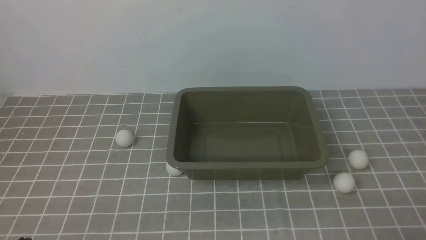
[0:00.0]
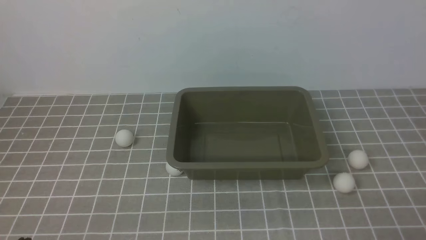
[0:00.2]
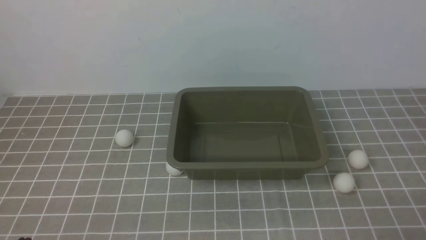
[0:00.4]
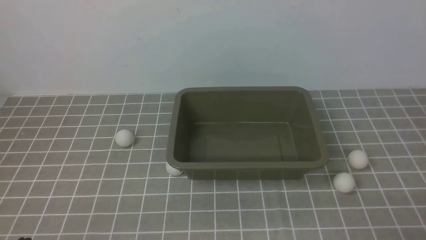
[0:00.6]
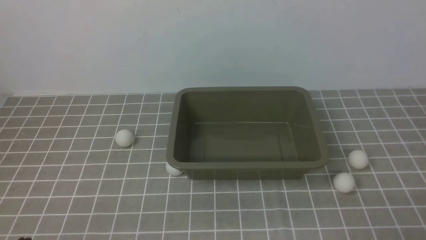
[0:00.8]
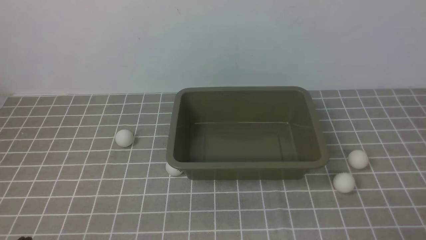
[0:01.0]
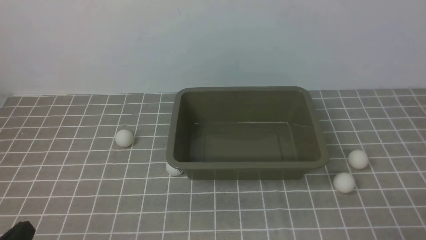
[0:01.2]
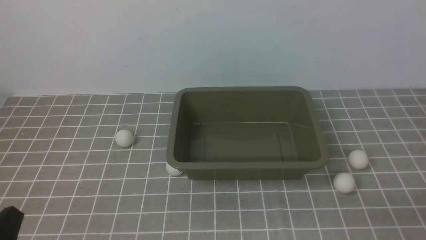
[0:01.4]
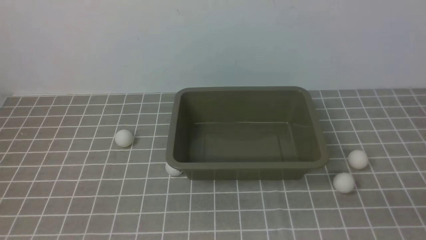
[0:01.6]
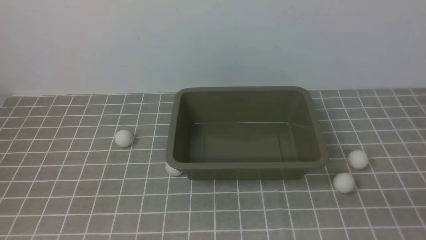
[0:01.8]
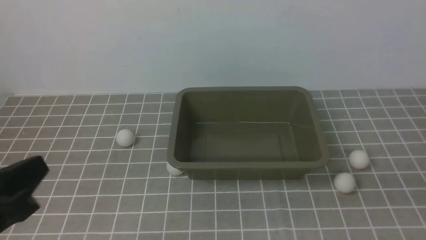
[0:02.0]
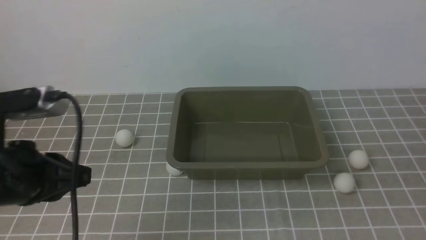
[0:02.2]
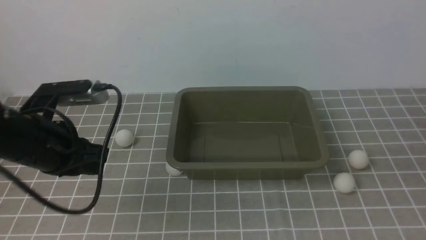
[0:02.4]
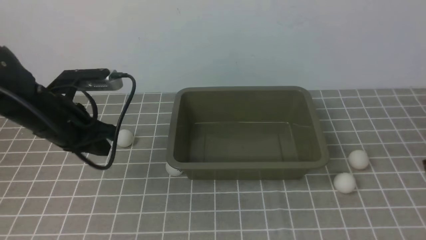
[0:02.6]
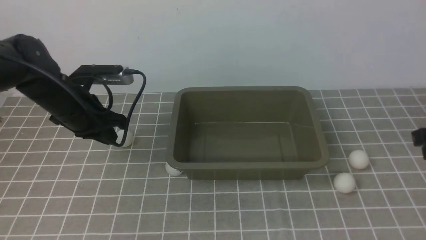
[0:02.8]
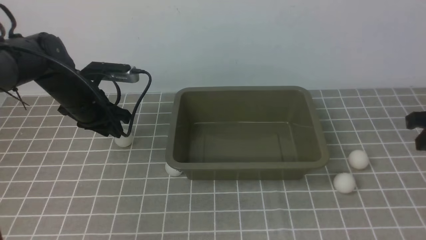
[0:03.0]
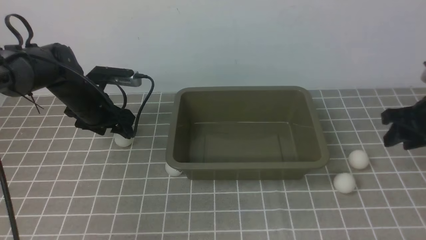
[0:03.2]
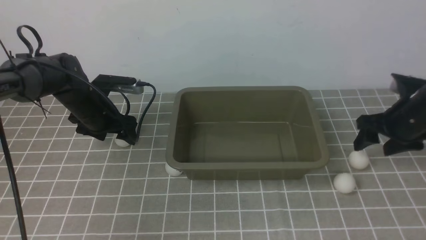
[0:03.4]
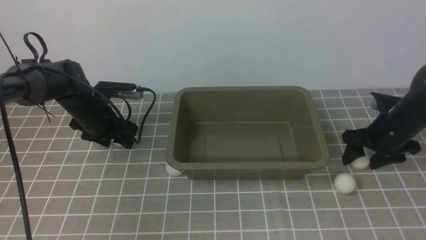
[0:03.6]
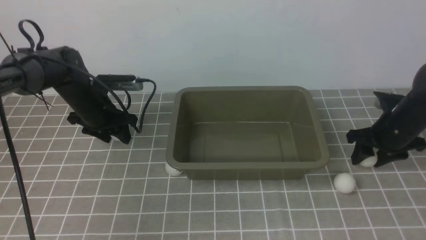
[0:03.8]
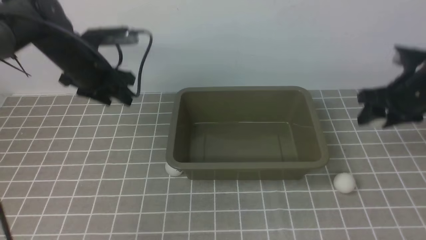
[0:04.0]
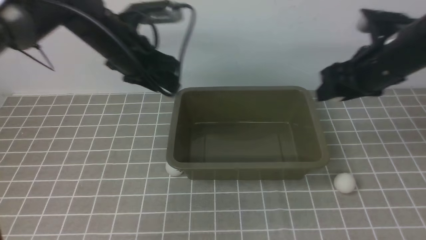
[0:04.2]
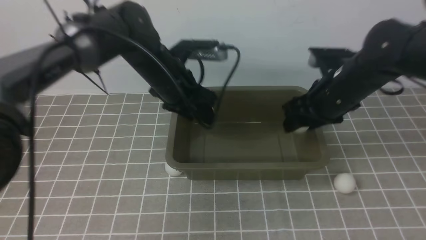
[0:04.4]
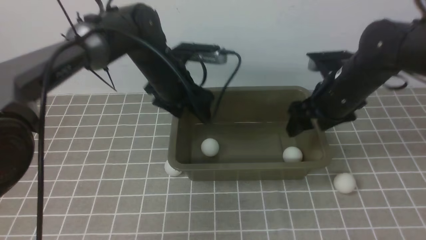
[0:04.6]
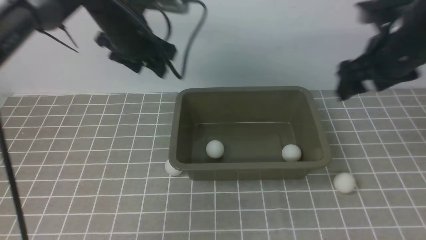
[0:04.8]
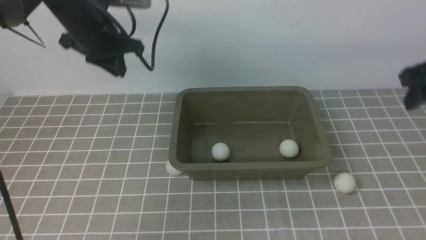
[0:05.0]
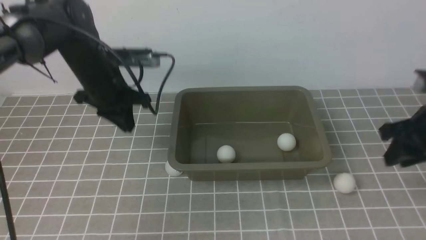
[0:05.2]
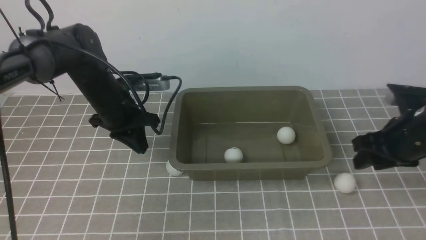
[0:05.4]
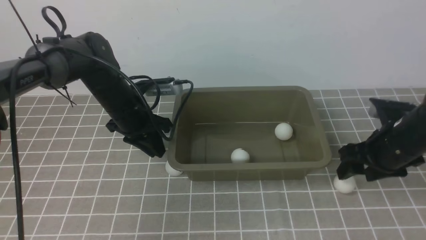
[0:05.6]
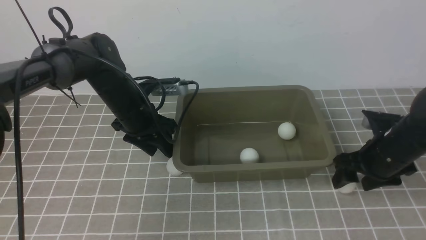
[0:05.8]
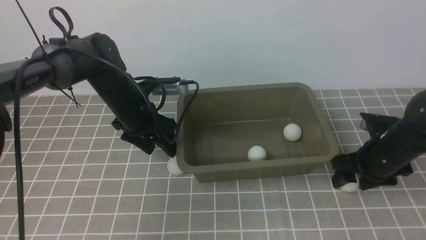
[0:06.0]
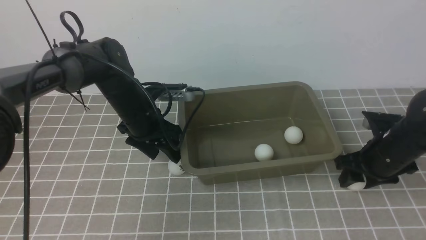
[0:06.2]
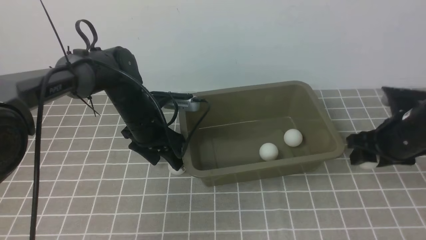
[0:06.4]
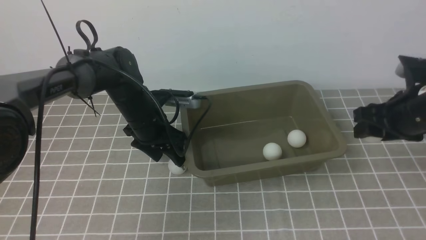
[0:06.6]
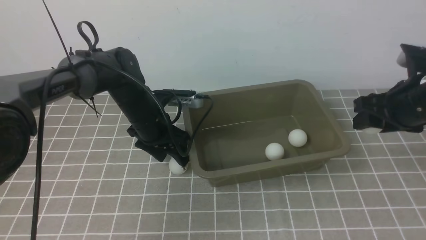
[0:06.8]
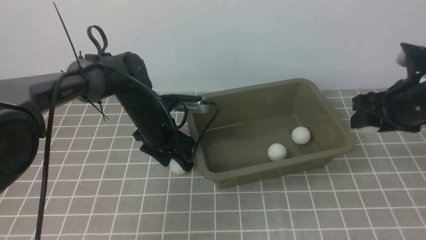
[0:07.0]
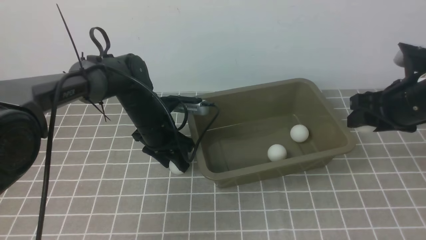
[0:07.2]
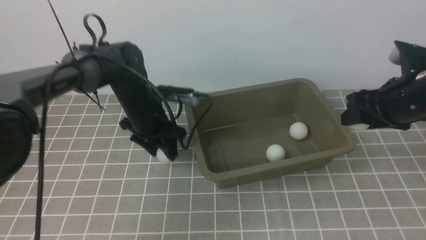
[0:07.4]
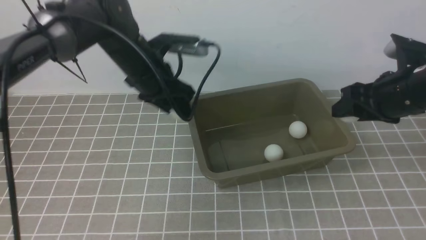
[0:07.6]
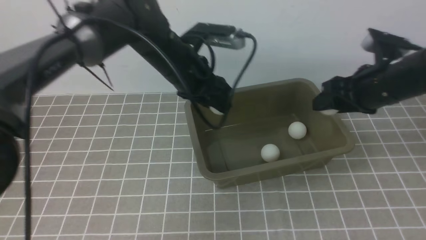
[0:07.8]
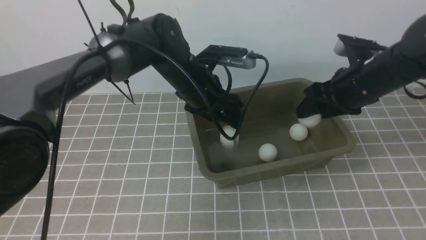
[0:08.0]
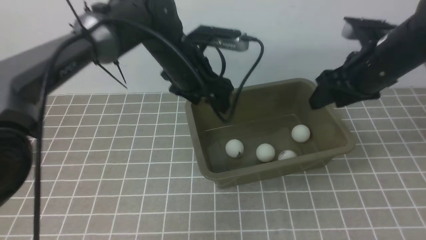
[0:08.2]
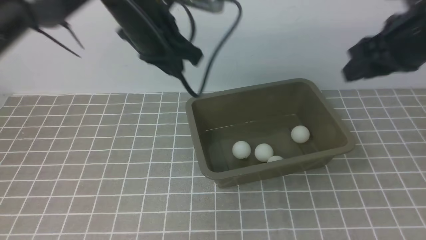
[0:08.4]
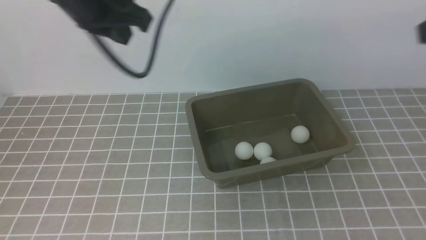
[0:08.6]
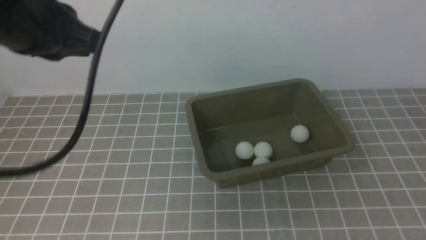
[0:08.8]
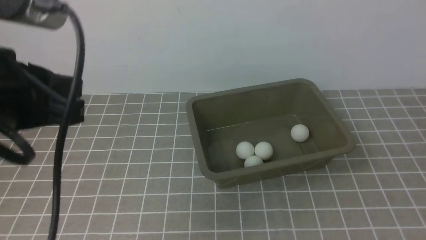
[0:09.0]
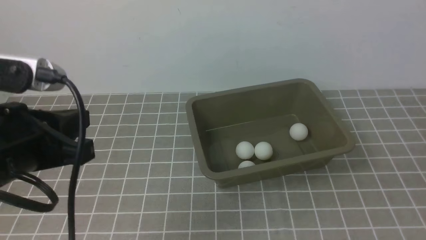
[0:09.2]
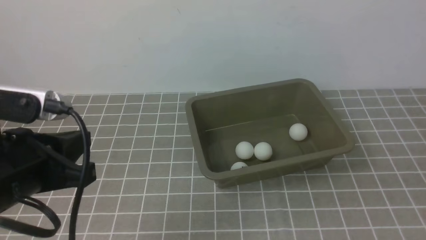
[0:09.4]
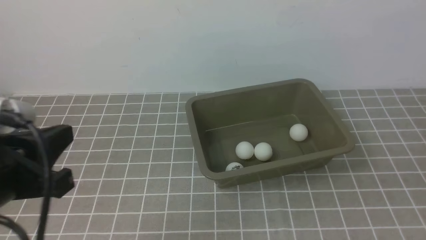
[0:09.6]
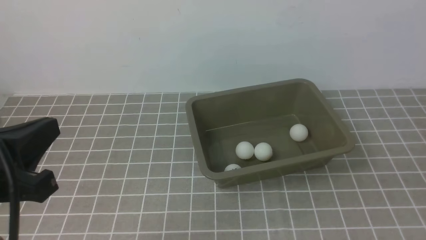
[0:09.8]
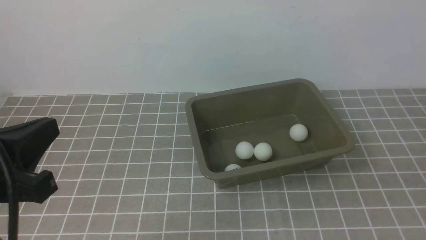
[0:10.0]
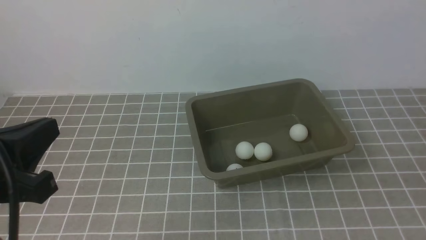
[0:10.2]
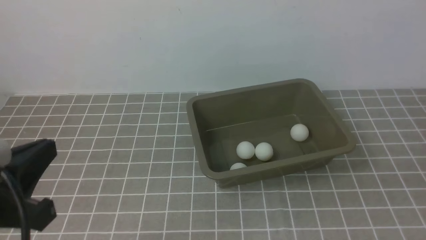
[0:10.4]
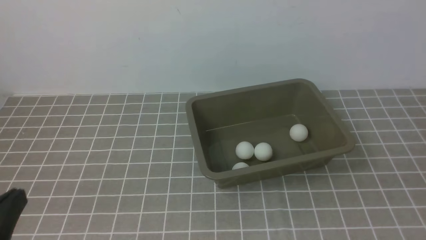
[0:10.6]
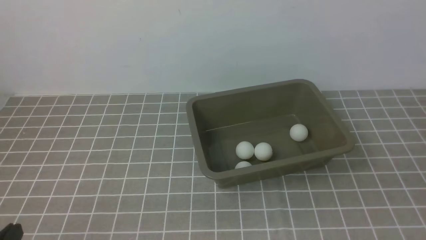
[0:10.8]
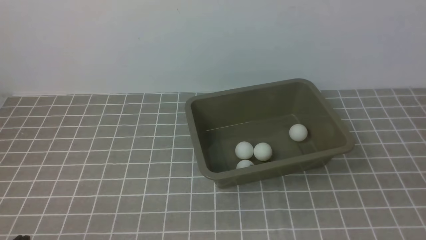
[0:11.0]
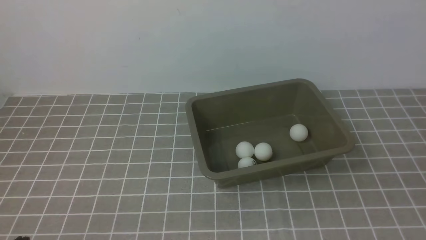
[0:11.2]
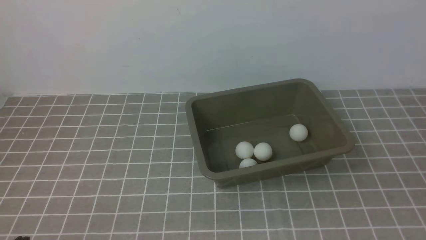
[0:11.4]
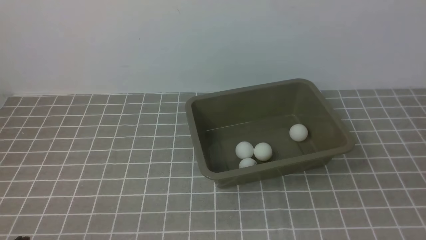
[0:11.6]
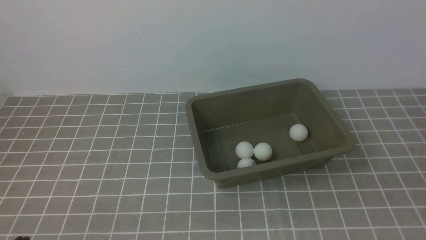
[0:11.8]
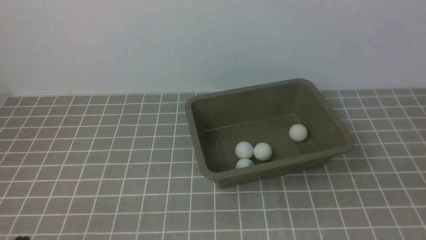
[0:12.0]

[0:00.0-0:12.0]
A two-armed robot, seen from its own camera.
Step, 0:00.0 to 0:03.8: use the left arm to clamp the table tennis ball closest to it.
Step, 0:04.0 to 0:04.4: use the left arm to put the table tennis ball into the box.
Step, 0:04.6 to 0:06.6: use the right arm to clamp the table tennis ball closest to it.
Step, 0:06.8 to 0:07.4: use the left arm to clamp the table tennis ball closest to it.
Step, 0:07.6 to 0:08.2: use the right arm to put the table tennis ball into the box.
0:01.6 to 0:03.0: The right gripper shifts approximately 20 cm forward and upward, while the left gripper is displaced forward by approximately 35 cm.
0:03.0 to 0:04.4: The left gripper goes some 15 cm to the right and upward, and opens its fingers; the right gripper heads to the left and forward, covering approximately 15 cm, and opens.
0:04.4 to 0:06.0: The right gripper goes roughly 10 cm downward and to the right; the left gripper is displaced downward by about 10 cm, and closes, then opens again.
0:06.0 to 0:07.6: The left gripper shifts by about 5 cm, while the right gripper moves upward, approximately 10 cm.
0:07.6 to 0:09.0: The two grippers go about 30 cm backward and upward. The right gripper closes up. Meanwhile the left gripper closes its fingers.
0:09.0 to 0:10.4: The left gripper travels backward and downward by roughly 15 cm.
0:10.4 to 0:12.0: The left gripper shifts about 15 cm downward.

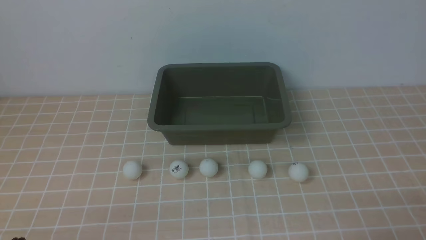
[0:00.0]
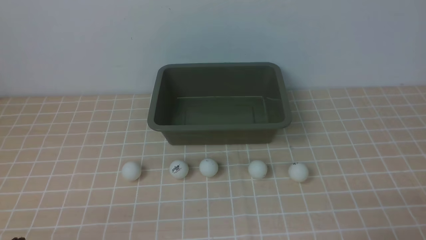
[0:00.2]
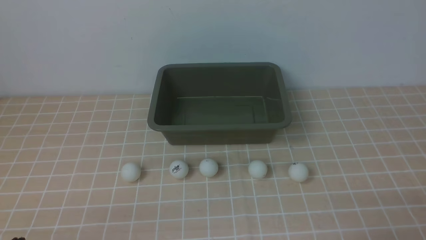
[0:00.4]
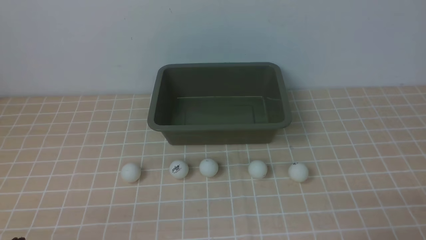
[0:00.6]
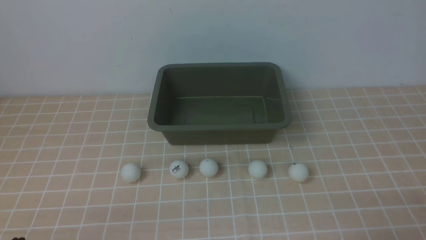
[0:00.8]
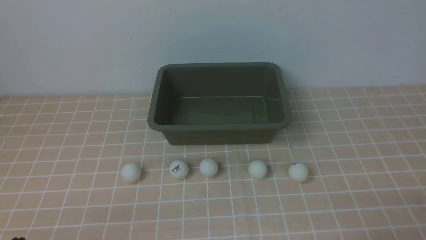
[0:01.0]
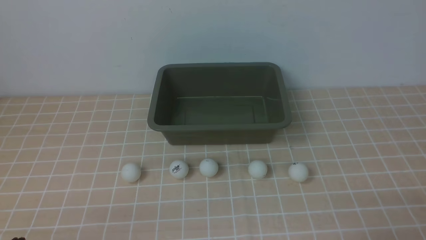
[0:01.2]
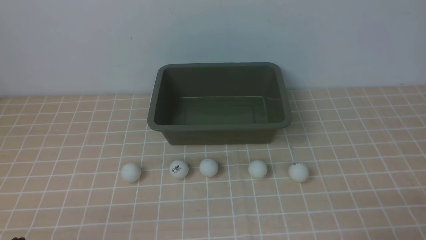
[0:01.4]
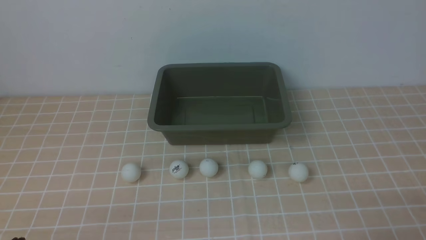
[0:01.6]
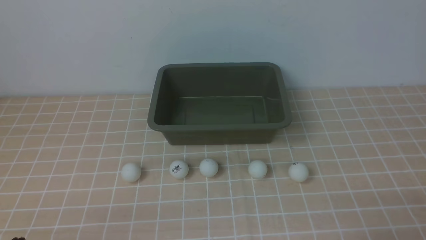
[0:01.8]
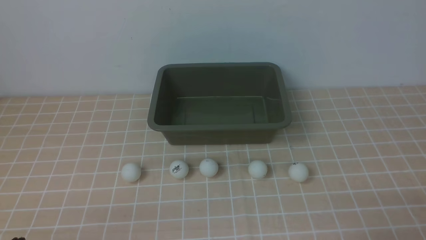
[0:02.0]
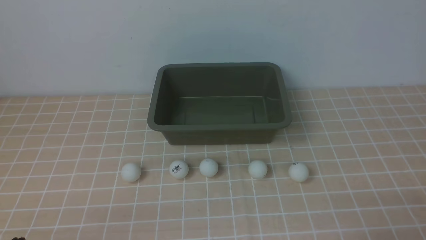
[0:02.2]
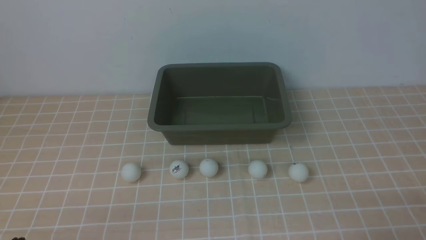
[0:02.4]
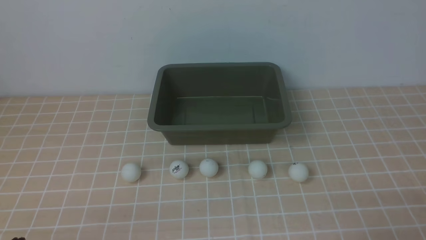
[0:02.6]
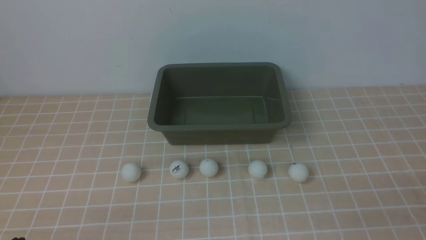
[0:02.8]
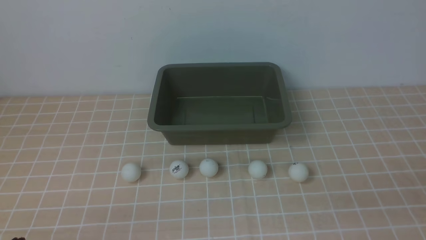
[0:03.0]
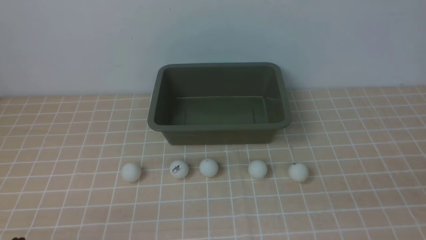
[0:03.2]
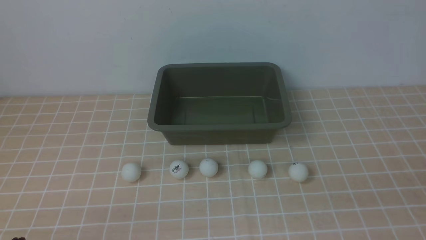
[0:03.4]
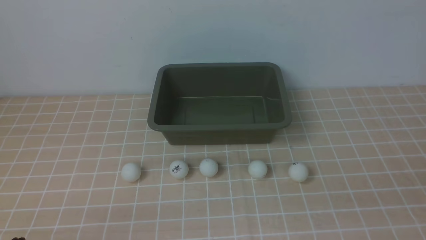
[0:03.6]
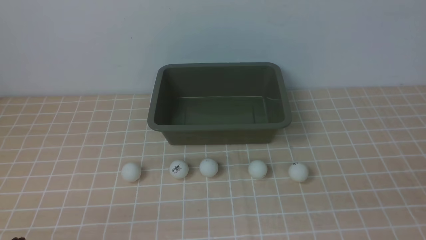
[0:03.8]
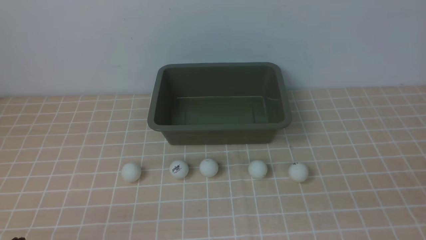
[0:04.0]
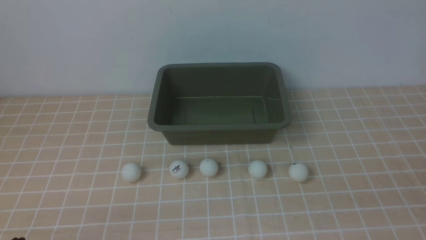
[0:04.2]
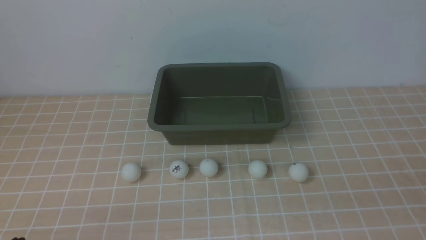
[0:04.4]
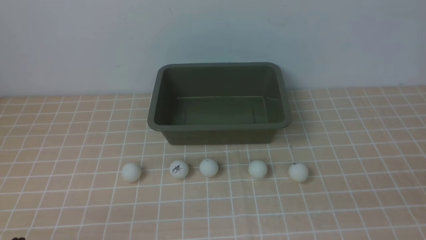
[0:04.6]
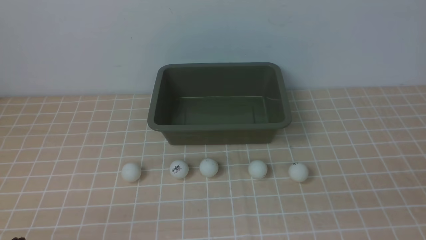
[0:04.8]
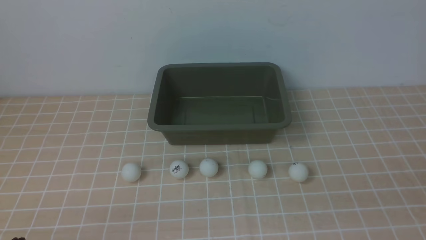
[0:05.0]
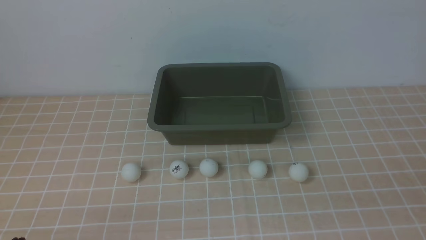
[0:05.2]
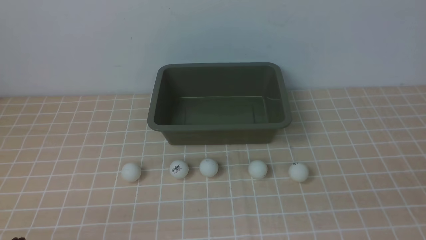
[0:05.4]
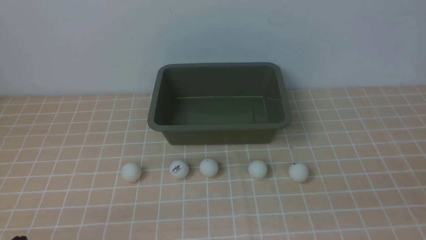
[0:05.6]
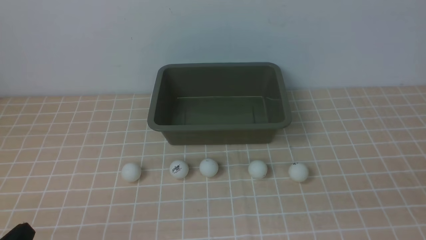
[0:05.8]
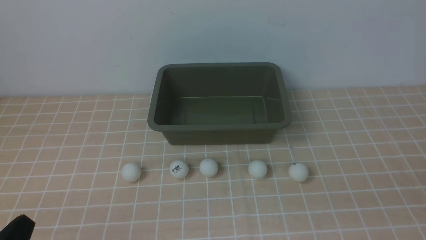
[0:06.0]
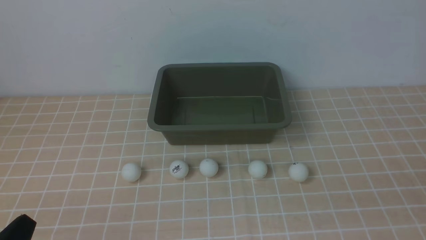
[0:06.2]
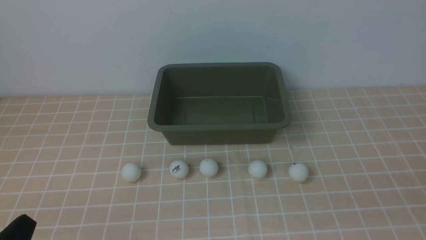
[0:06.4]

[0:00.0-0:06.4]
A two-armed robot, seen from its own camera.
0:00.0 to 0:01.6: Both grippers stay about where they are.
